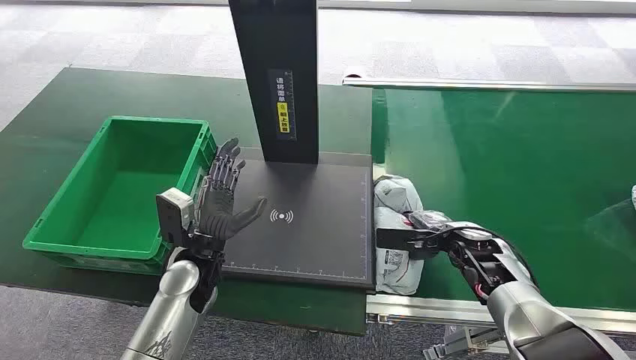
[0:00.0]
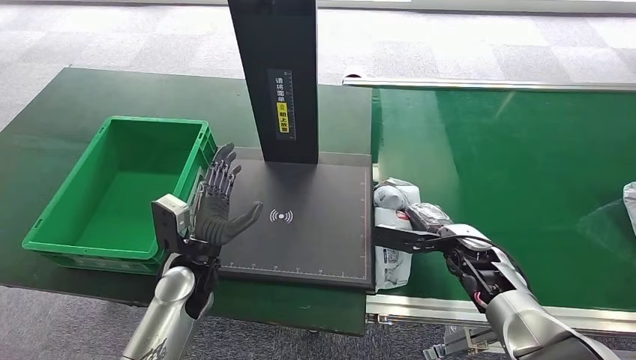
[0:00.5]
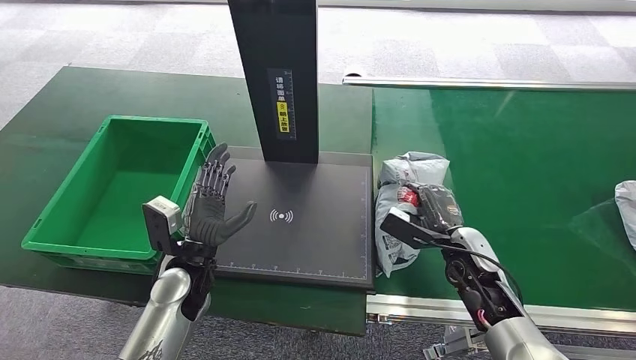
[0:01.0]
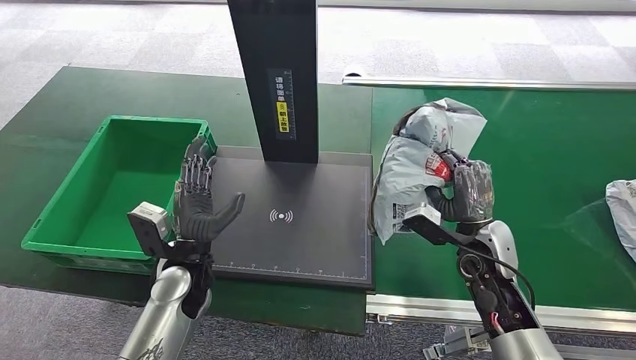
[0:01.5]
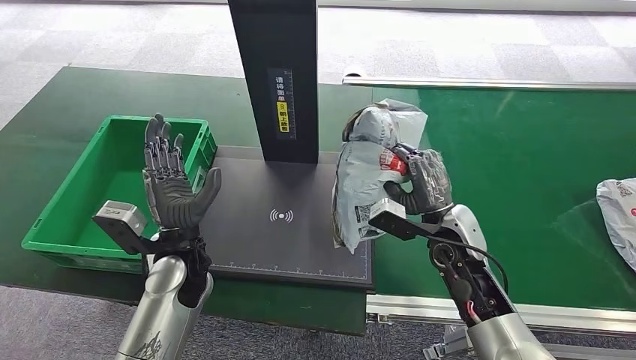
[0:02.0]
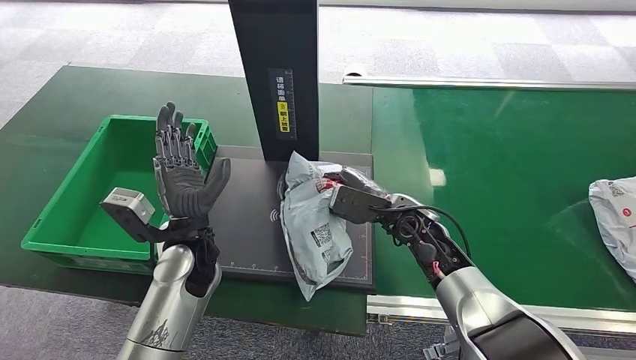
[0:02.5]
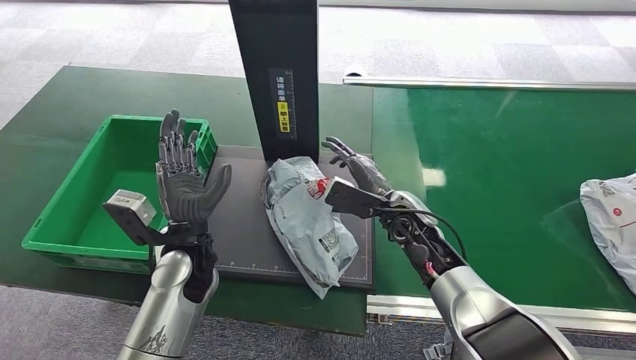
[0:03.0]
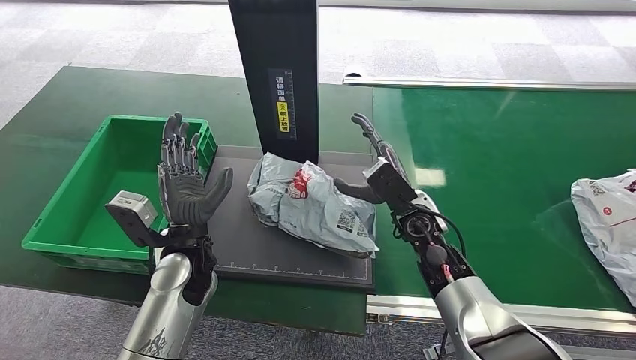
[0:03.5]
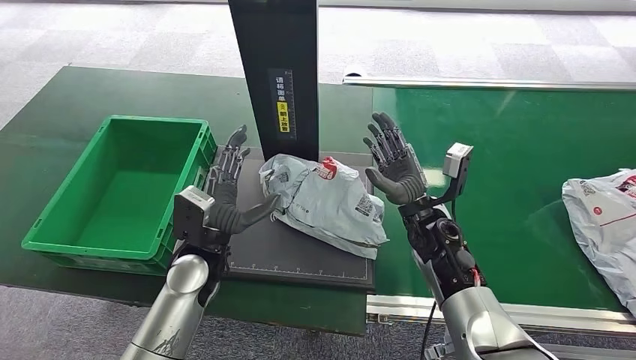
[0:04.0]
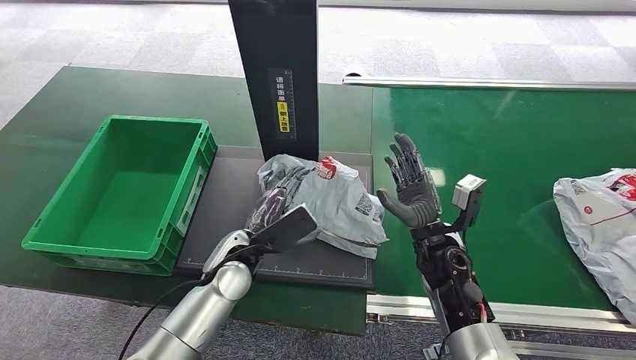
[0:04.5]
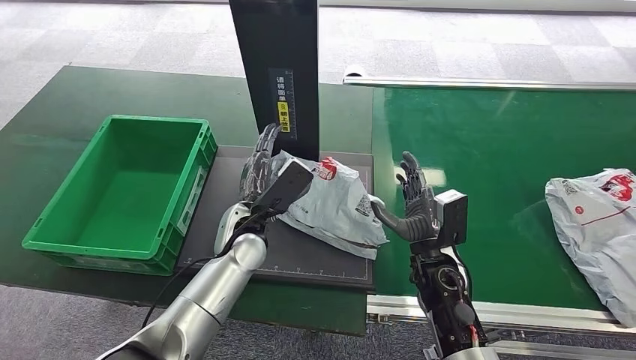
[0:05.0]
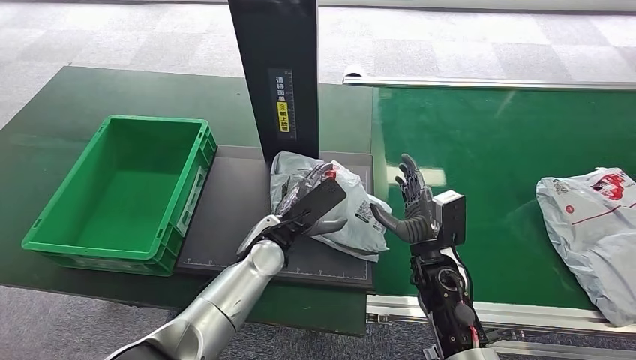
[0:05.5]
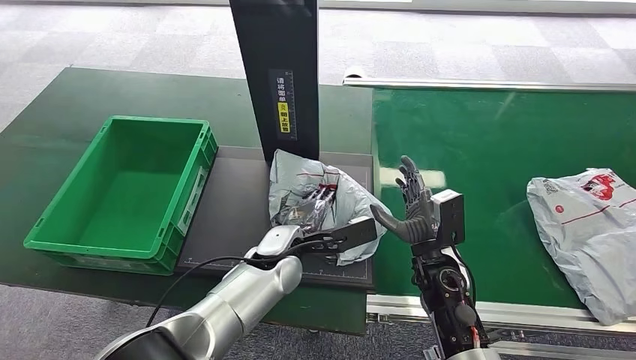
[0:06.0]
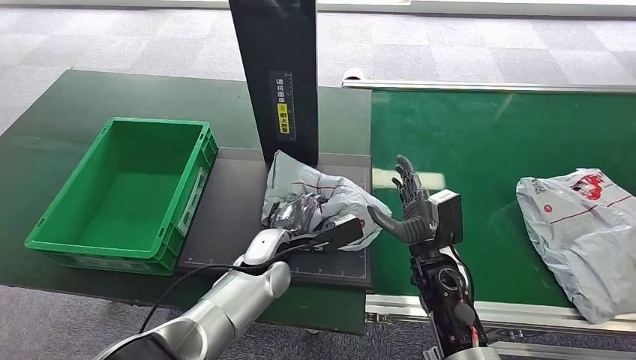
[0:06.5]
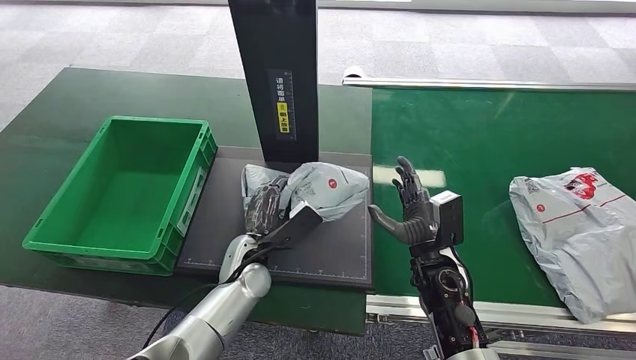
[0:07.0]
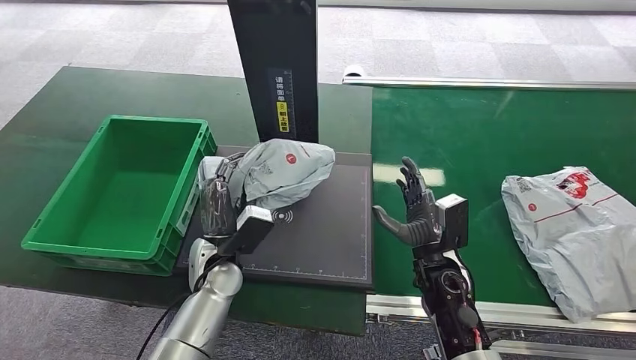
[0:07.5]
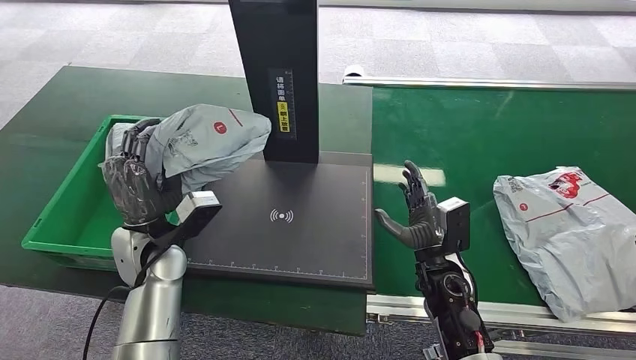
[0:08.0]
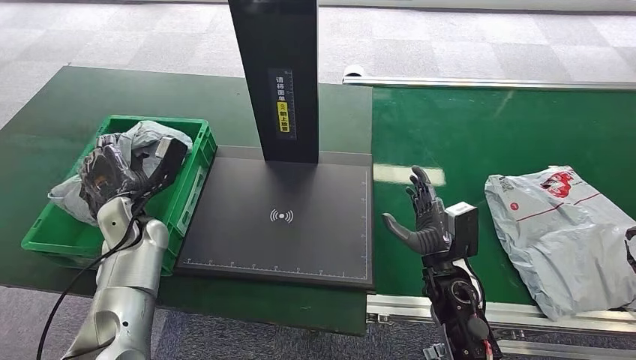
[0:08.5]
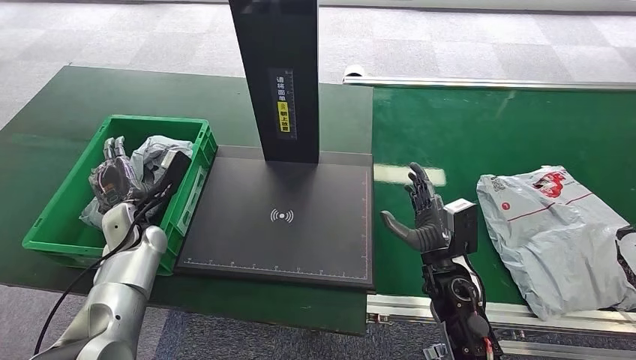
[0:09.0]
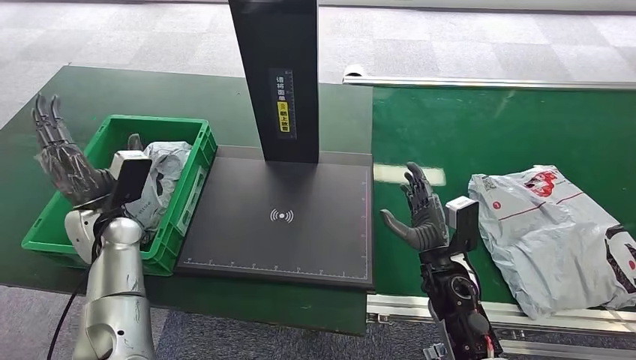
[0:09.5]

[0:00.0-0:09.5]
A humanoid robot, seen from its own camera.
Step, 0:00.0 to 0:01.5: Pick up the package from the conveyor belt.
Step, 0:02.0 to 0:04.5: Place the package onto the inbound machine.
Step, 0:05.0 to 0:07.5: Pick up the package from the inbound machine.
Step, 0:08.0 to 0:09.5: Place the package into the parcel locker.
0:04.0 to 0:05.5: The left hand is displaced to the right by about 10 cm; the right hand travels backward by roughly 5 cm.
0:05.5 to 0:07.5: The left hand heads to the left, covering roughly 5 cm.

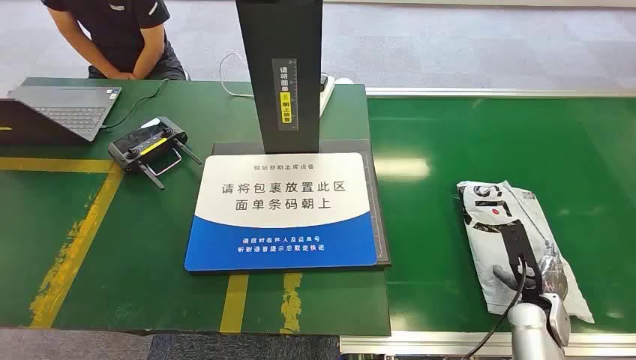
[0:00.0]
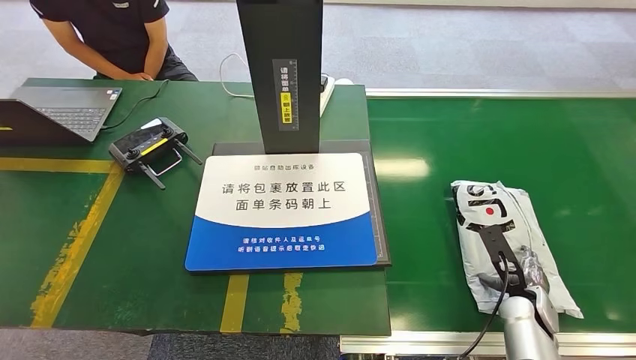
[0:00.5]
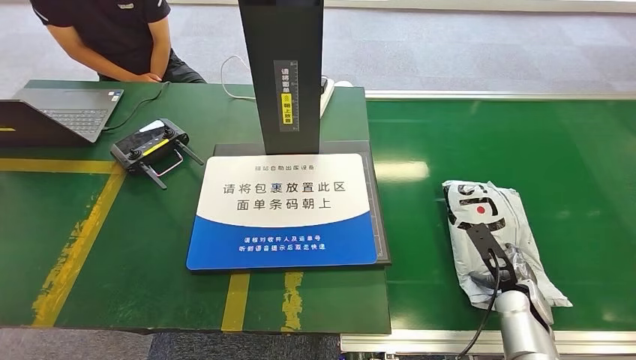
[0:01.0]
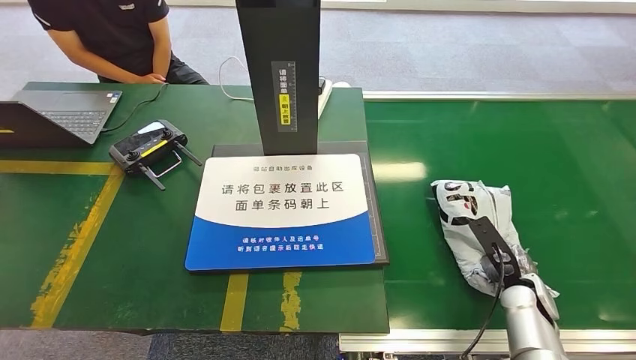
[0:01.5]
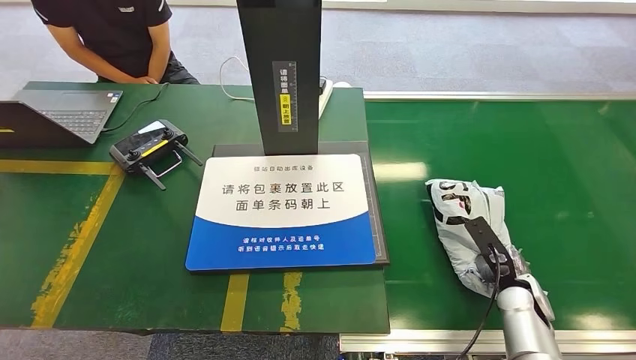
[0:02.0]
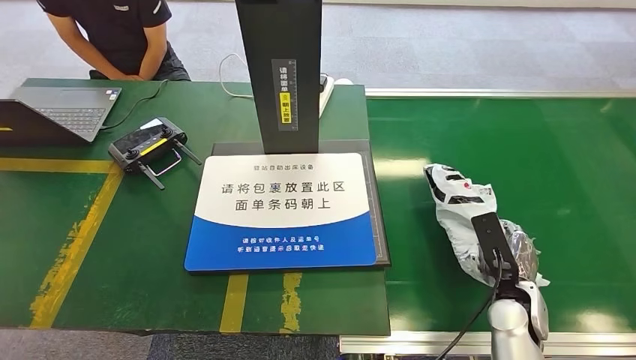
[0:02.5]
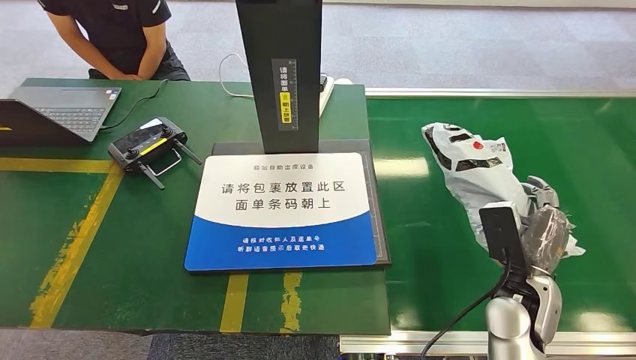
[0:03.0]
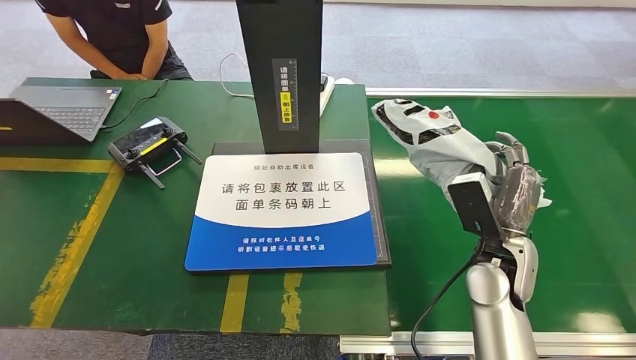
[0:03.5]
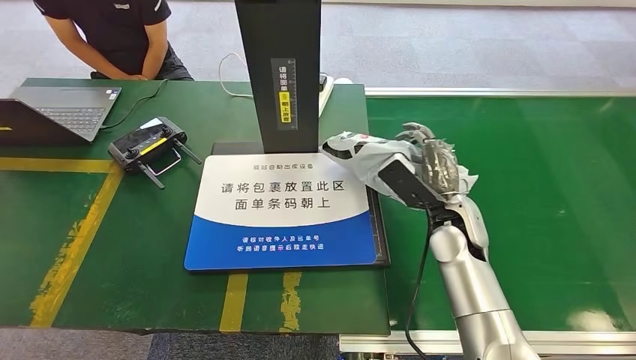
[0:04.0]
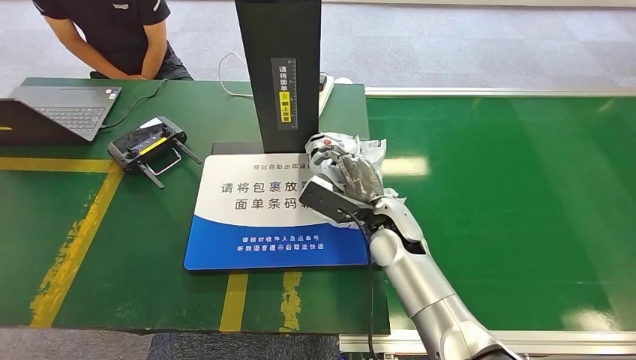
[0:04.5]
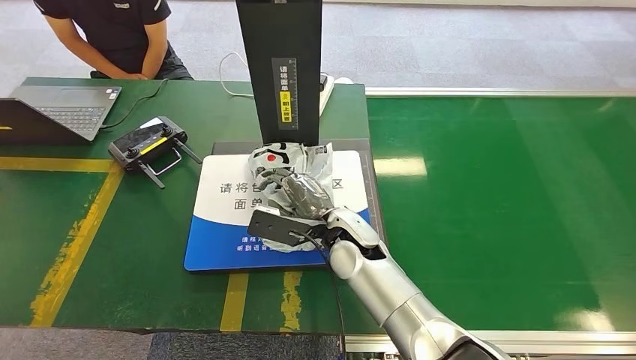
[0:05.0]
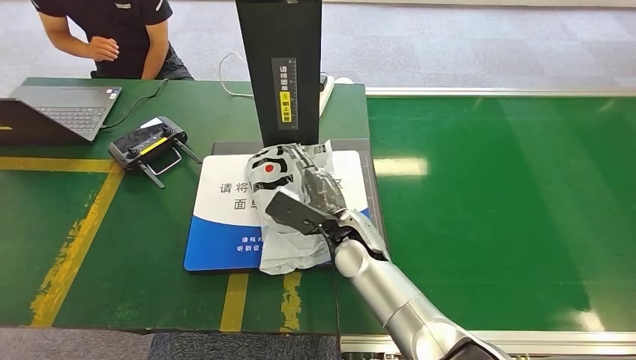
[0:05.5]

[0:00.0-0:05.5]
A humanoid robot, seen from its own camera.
Step, 0:00.0 to 0:02.5: Pick up the package from the conveyor belt.
Step, 0:03.5 to 0:05.5: Place the package onto the inbound machine.
